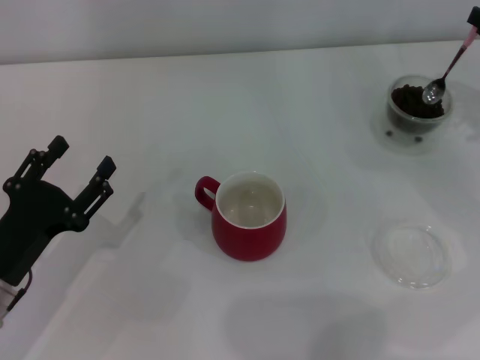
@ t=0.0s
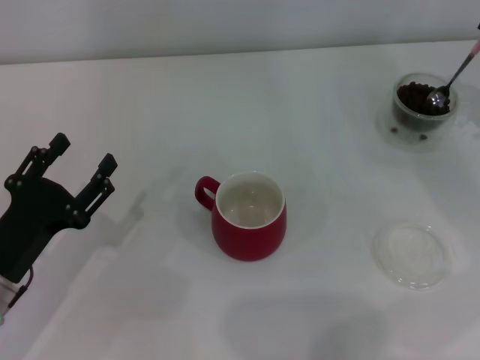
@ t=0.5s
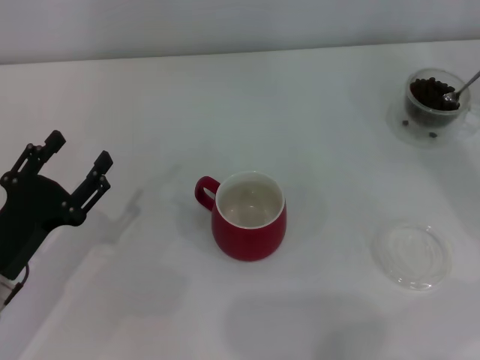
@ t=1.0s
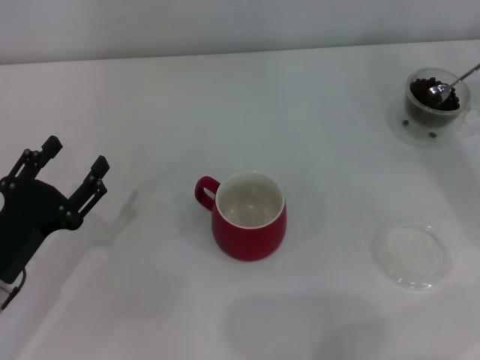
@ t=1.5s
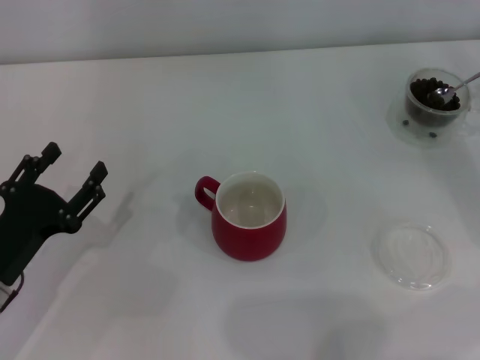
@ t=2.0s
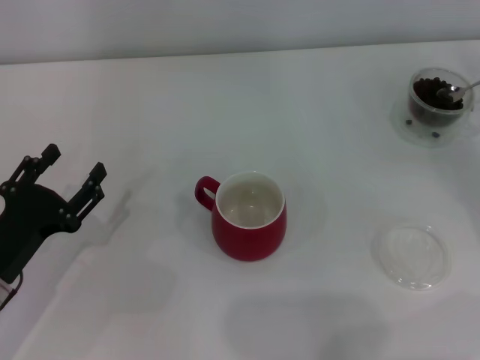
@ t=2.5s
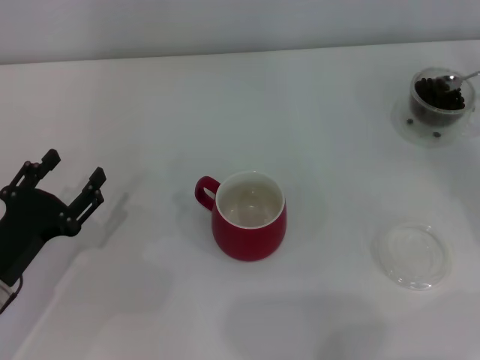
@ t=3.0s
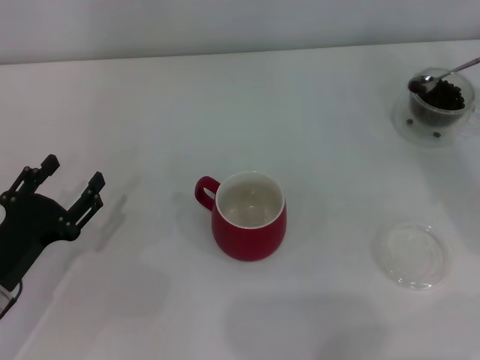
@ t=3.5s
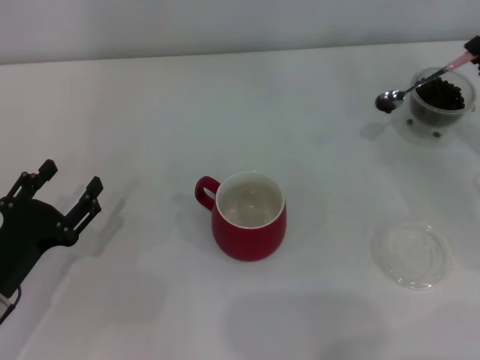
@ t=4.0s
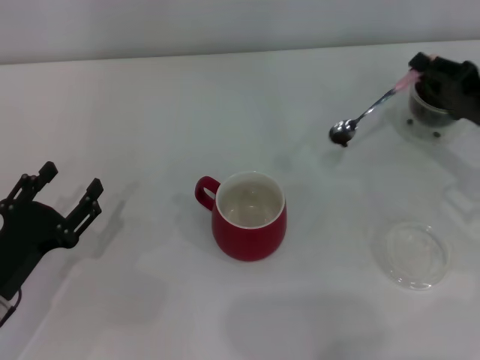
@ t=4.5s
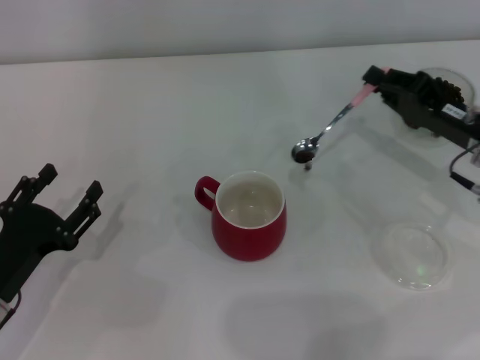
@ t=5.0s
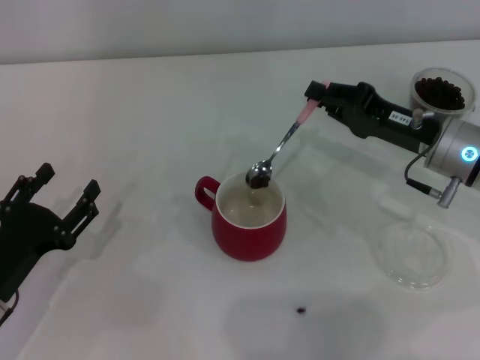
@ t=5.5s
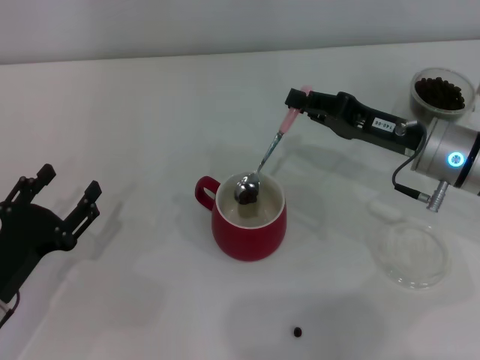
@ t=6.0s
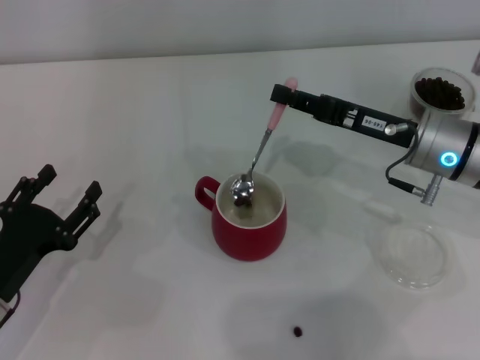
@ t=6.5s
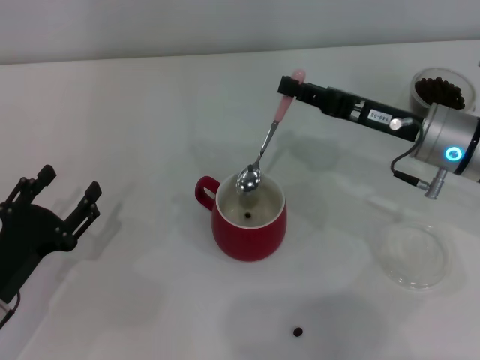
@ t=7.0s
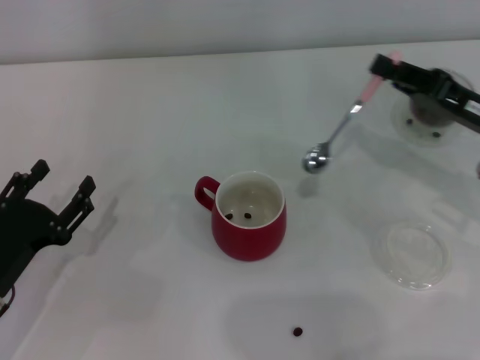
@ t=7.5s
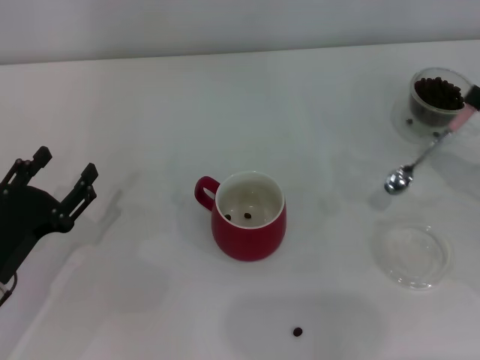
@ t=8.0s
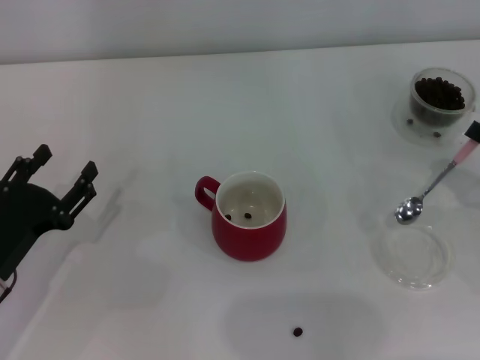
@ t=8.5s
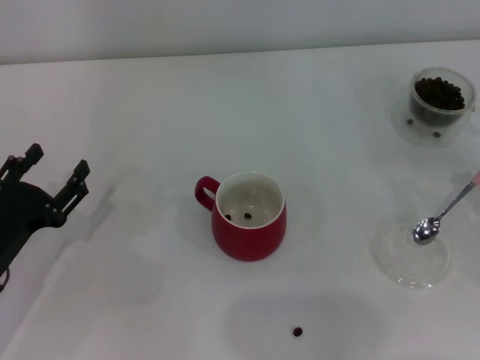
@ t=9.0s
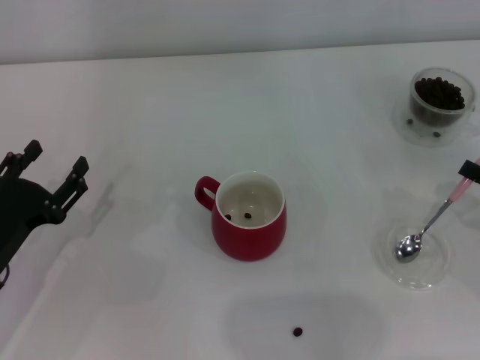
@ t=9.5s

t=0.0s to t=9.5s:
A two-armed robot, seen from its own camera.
Task of the whole recording: Use a pink spoon to take out the coffee beans from the glass and pour them into the red cup.
Step, t=0.0s to t=6.5s: Scoop a spoonful of beans into the cup with the right gripper.
t=2.0s to t=4.0s: There are only small adjustments of the grippers.
t=4.0s to t=5.5s: The right gripper is displaced to the left by approximately 10 cm.
t=5.5s to t=7.5s: The right gripper heads to the right, covering some 5 cm.
t=7.5s to t=9.5s: The right gripper moves backward and to the right, roughly 10 cm.

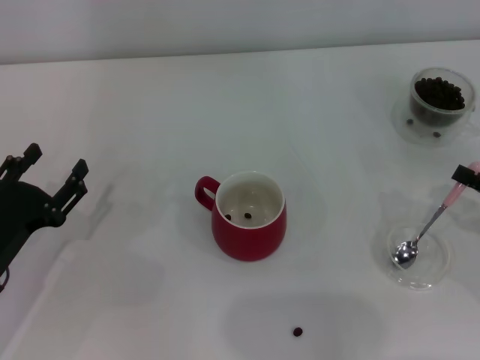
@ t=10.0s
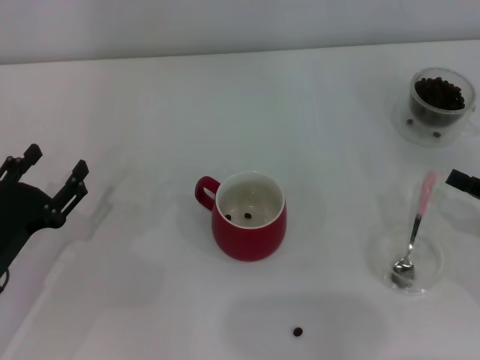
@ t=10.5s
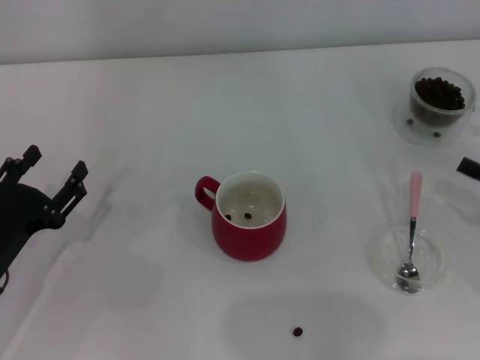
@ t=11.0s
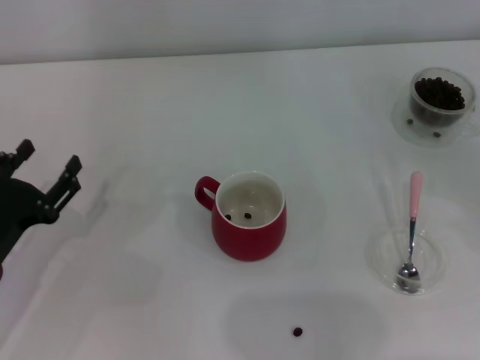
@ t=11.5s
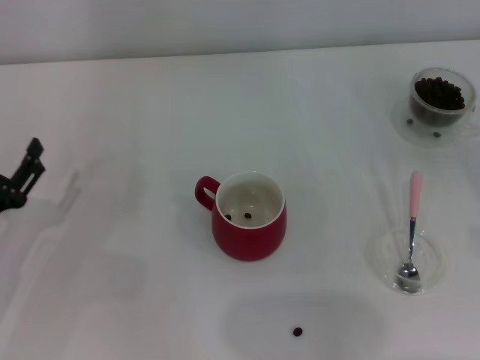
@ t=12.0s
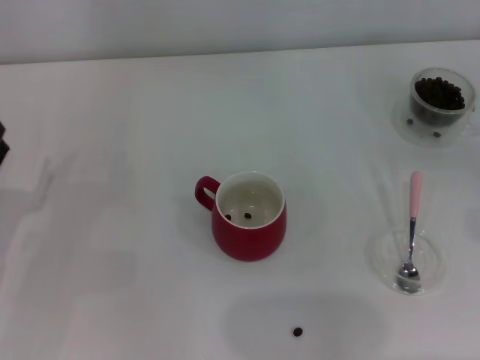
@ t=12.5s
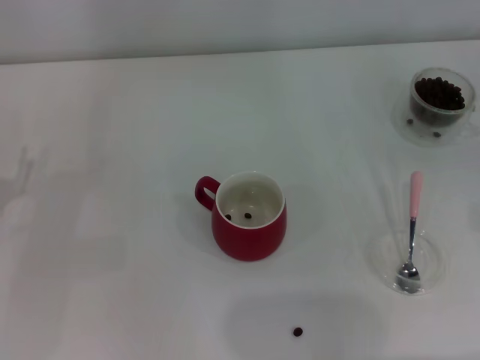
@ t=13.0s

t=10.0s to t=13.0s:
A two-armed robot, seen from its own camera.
Task of the whole recording: Use a pink spoon to take out the coffee beans from the glass and pour them into the red cup.
t=10.0s to t=11.5s: The right gripper moves to the right, about 5 cm.
